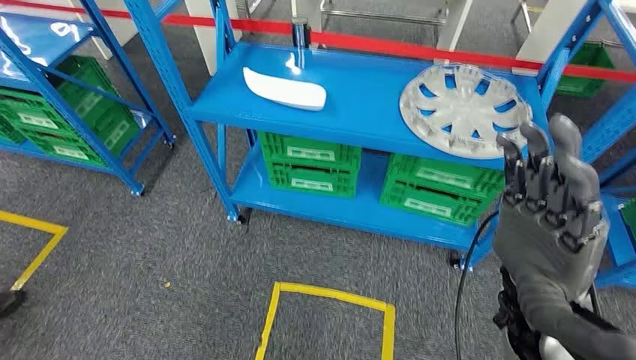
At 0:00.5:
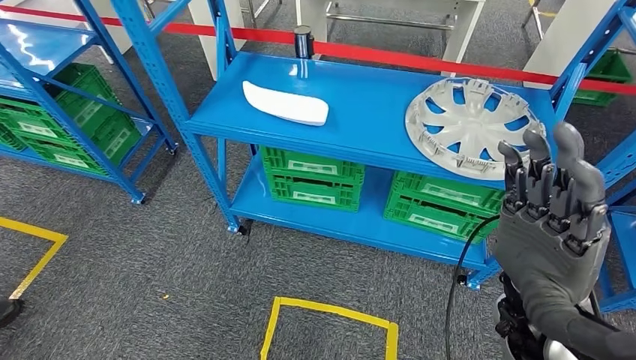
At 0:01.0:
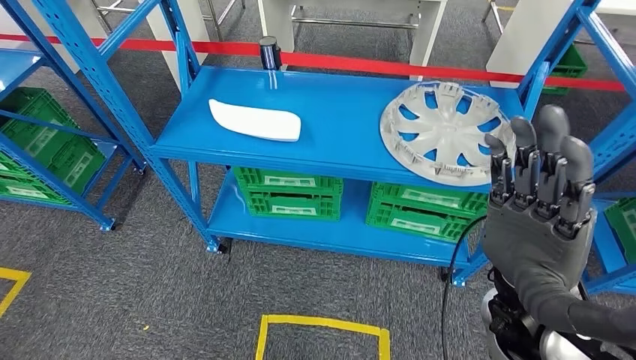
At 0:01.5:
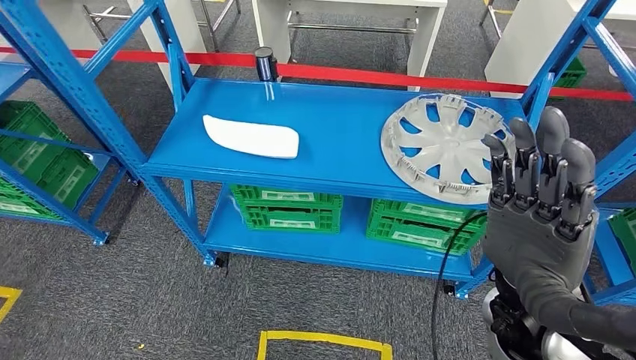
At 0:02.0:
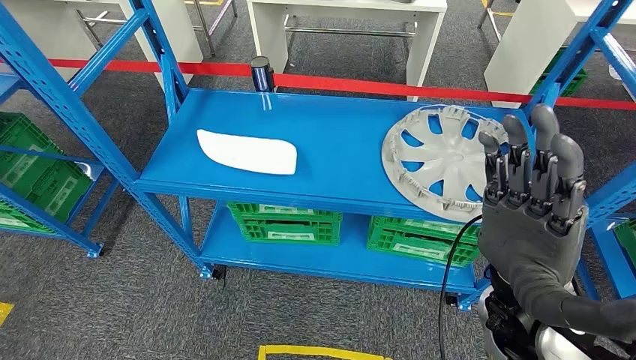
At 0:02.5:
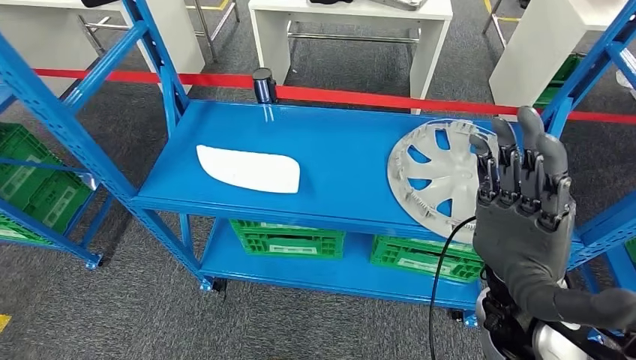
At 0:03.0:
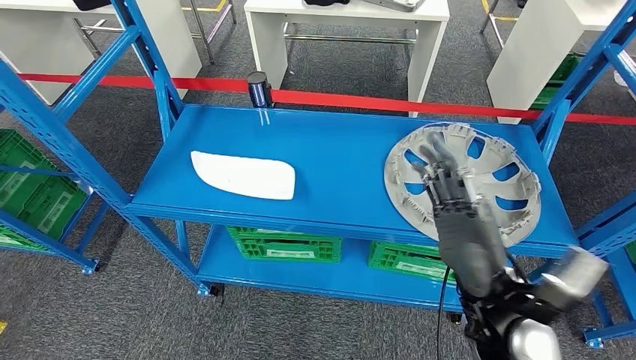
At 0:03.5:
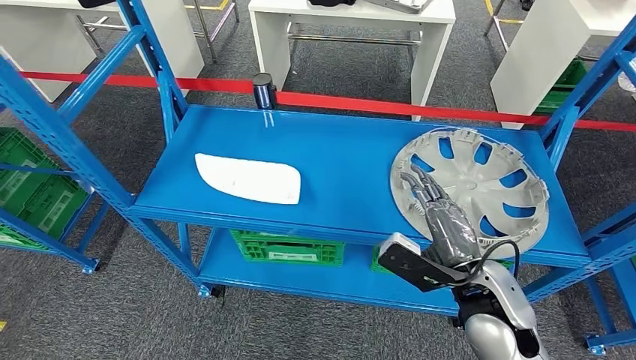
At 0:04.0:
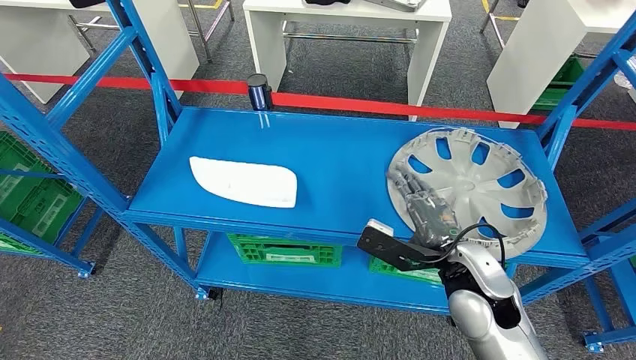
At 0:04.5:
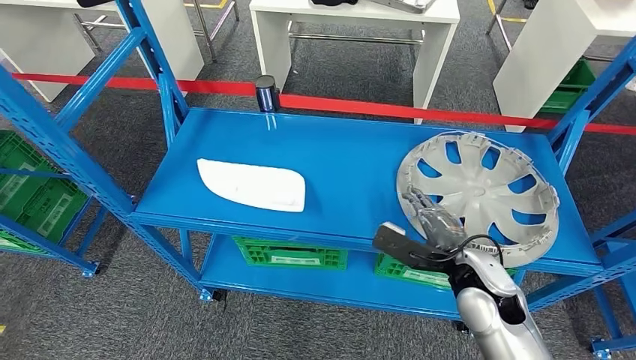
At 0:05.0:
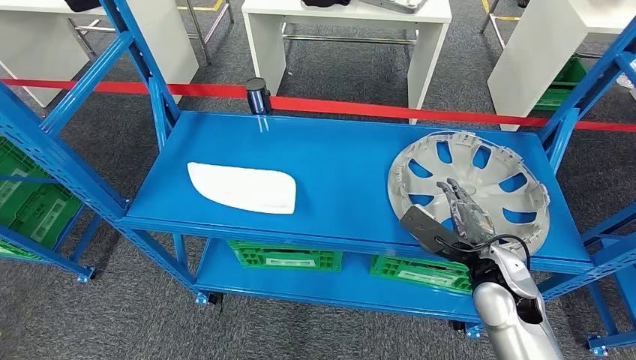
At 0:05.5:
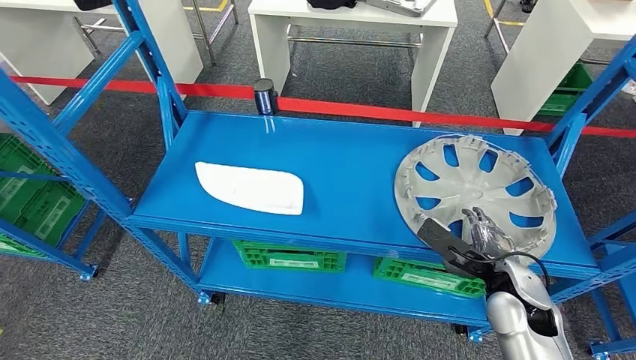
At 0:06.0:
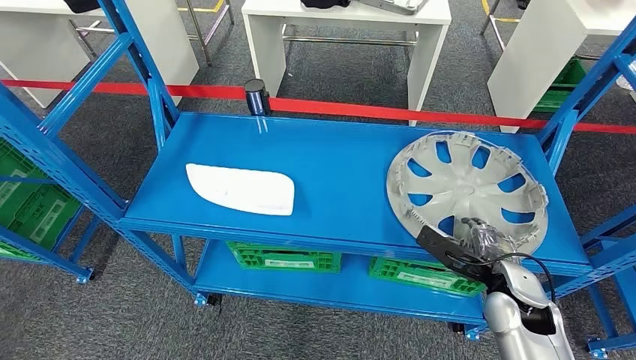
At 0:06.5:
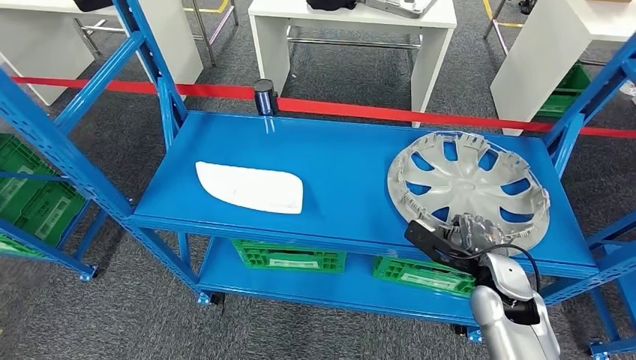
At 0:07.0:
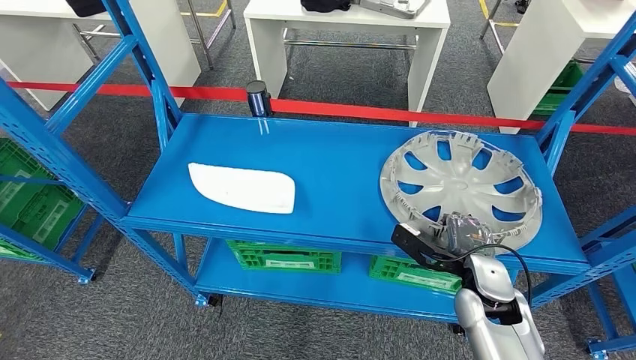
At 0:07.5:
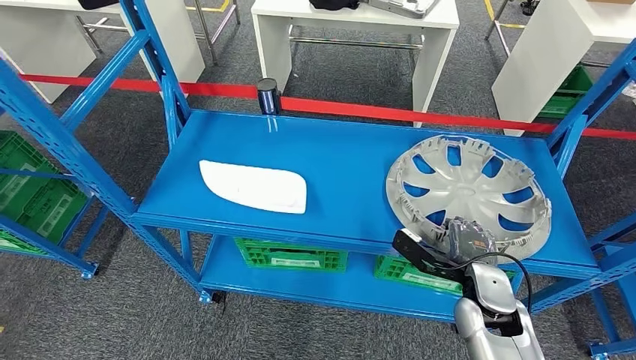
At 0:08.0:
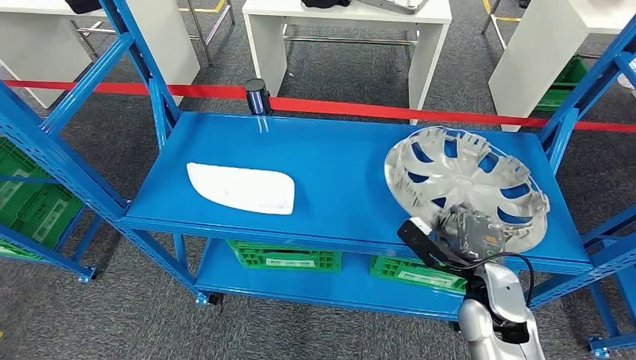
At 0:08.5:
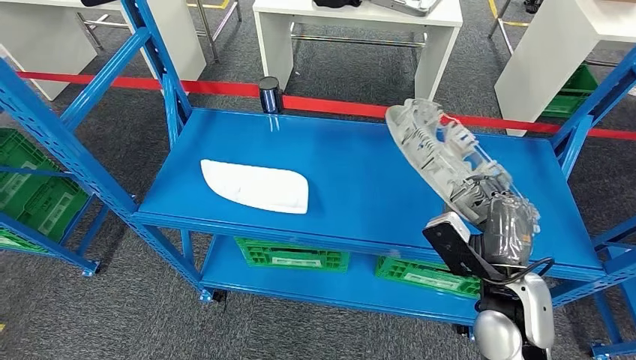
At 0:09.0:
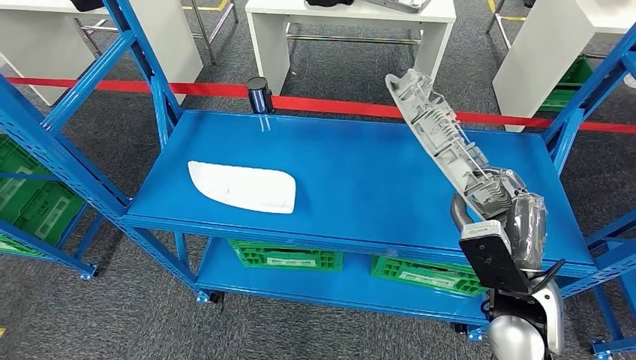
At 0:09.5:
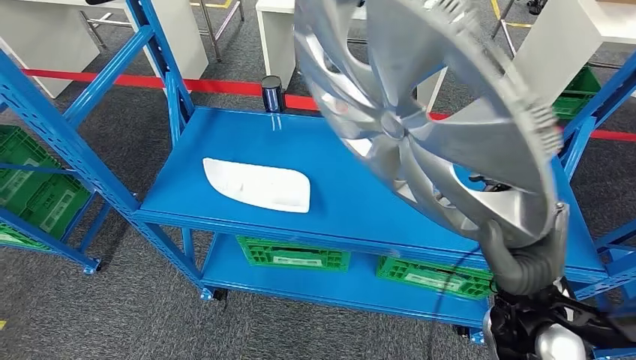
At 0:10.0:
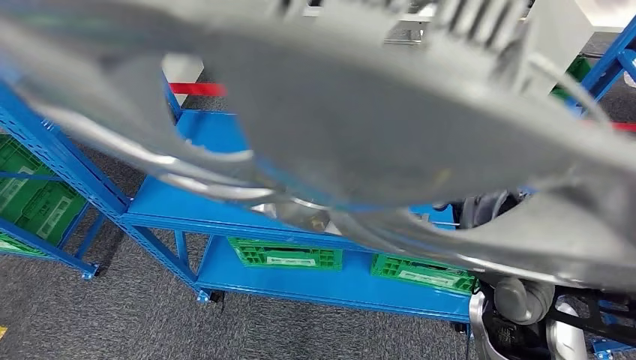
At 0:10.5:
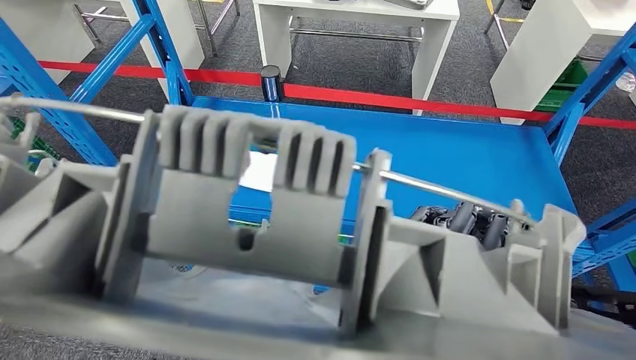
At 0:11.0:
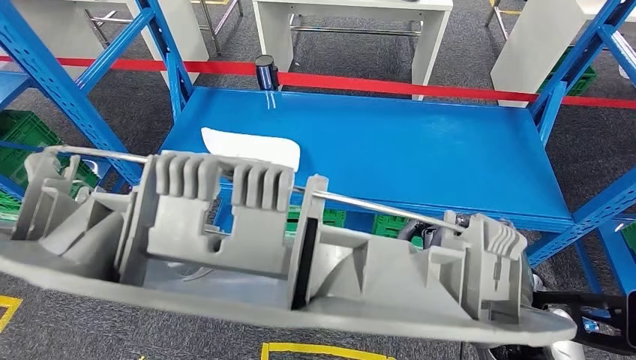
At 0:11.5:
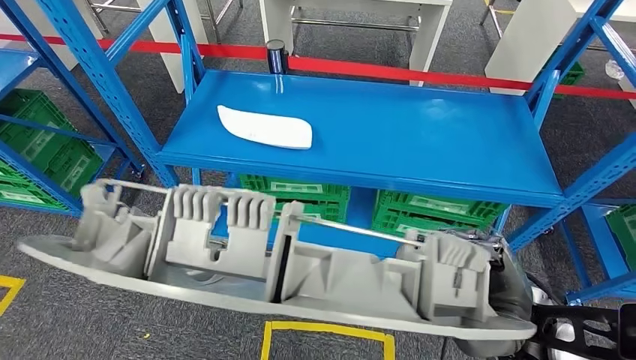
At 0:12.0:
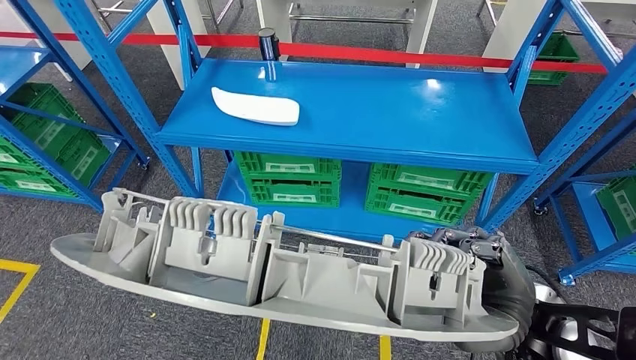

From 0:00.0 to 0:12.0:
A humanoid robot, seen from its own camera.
Step, from 0:00.0 to 0:10.0: Pick up the small component from the shelf.

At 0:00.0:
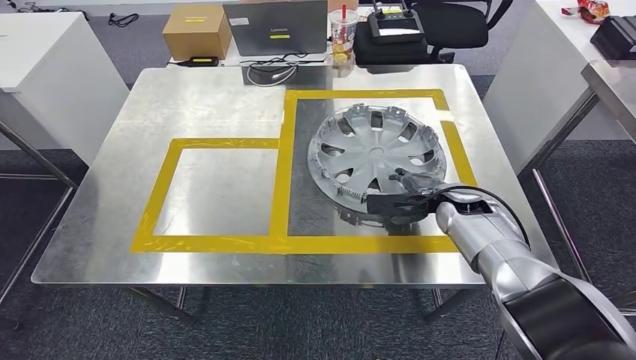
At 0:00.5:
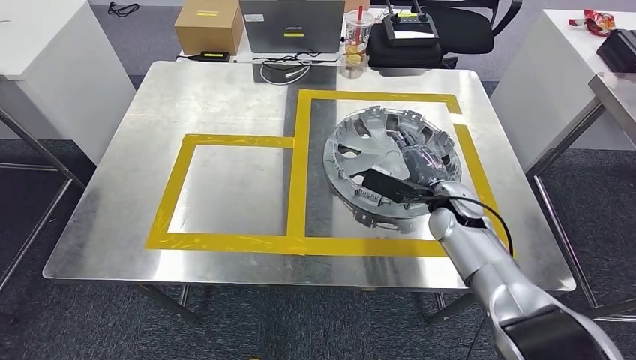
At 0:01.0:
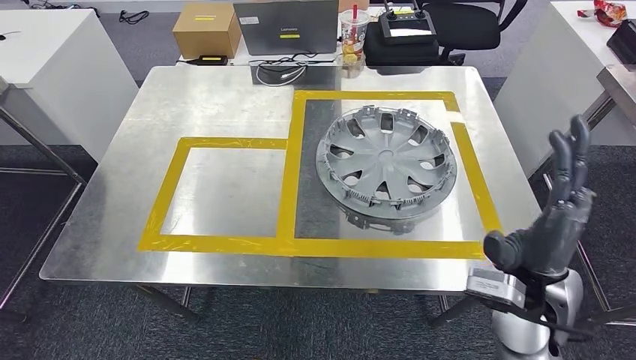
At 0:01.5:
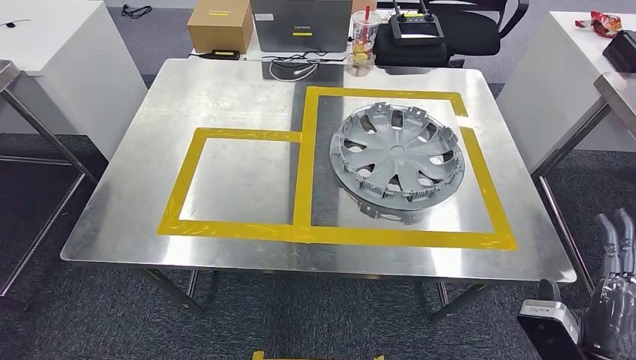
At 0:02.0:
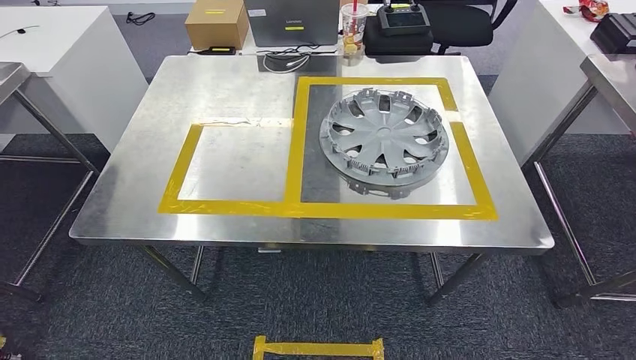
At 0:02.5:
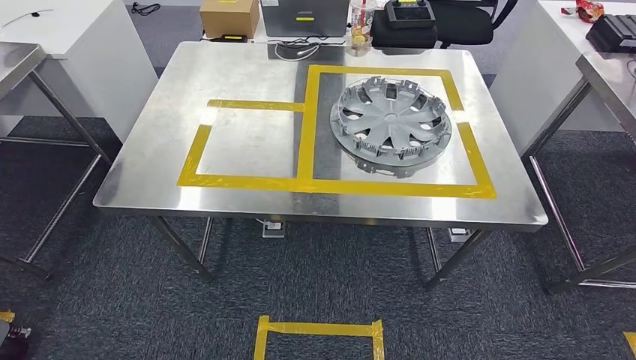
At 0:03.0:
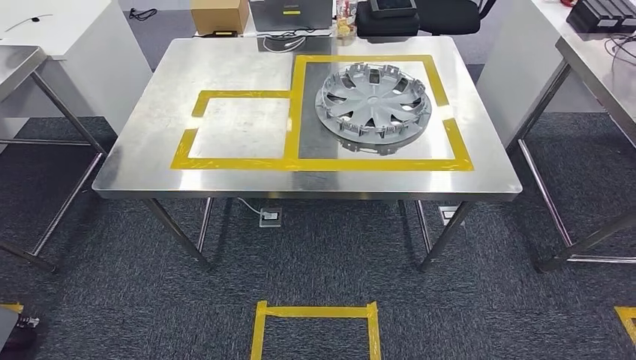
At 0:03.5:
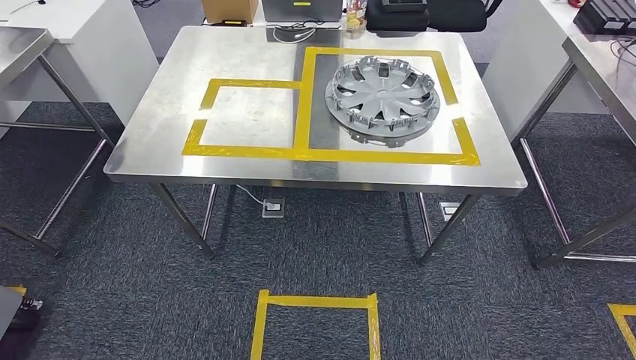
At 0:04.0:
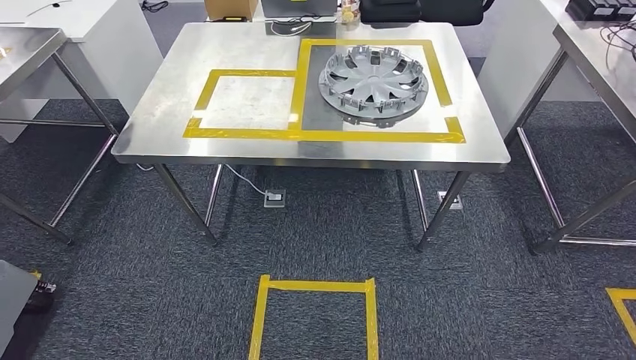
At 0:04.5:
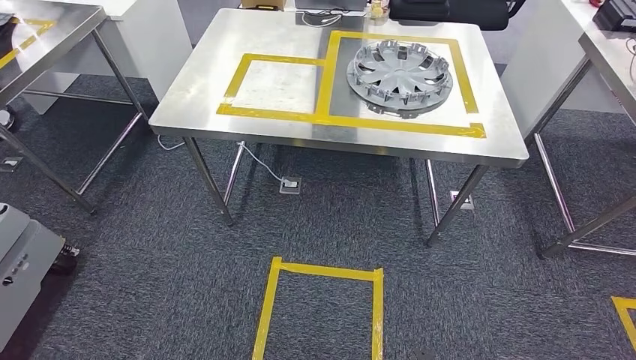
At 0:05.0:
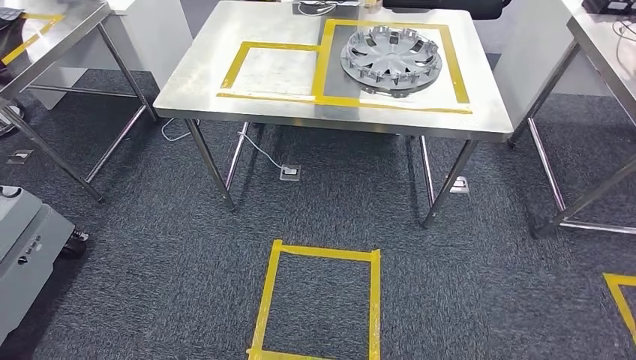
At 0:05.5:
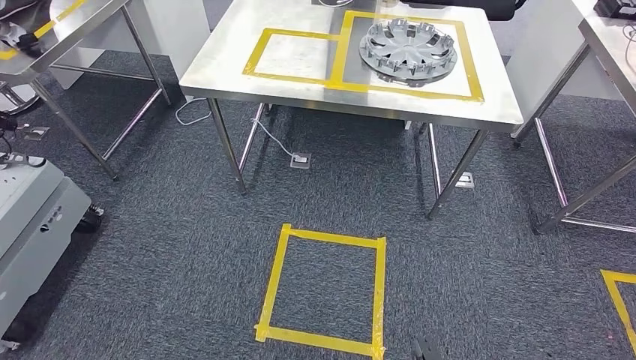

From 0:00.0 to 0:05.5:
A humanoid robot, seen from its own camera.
Step, from 0:00.5 to 0:05.5: Return to the initial position at the workbench.
